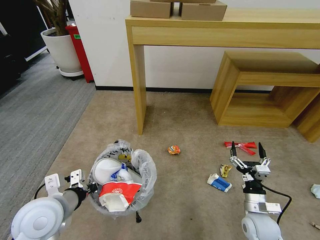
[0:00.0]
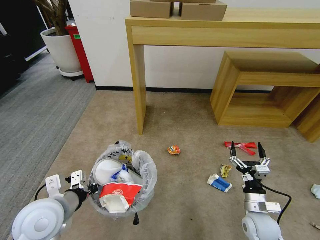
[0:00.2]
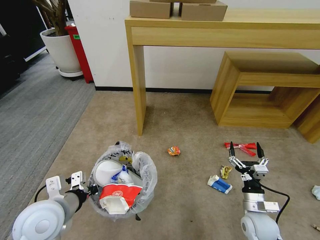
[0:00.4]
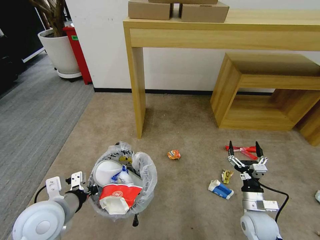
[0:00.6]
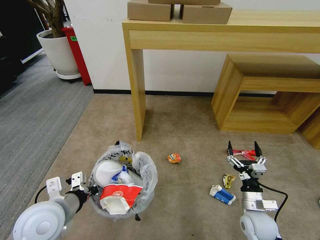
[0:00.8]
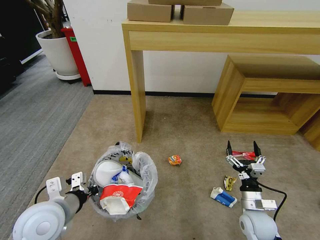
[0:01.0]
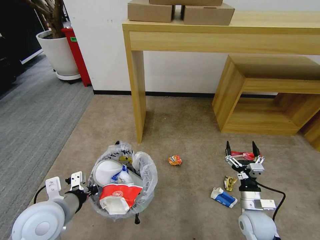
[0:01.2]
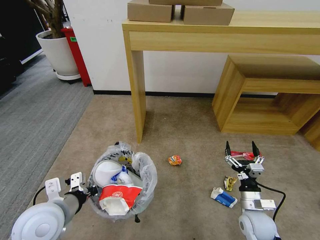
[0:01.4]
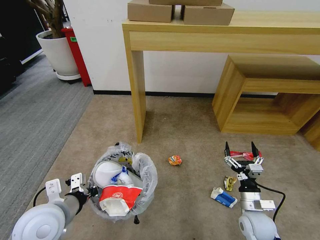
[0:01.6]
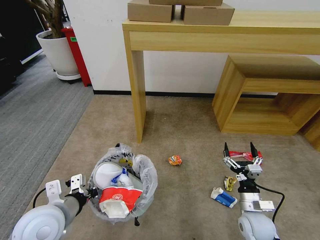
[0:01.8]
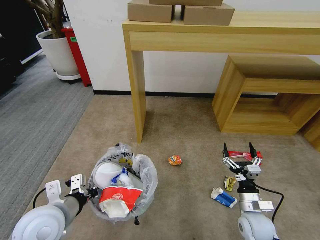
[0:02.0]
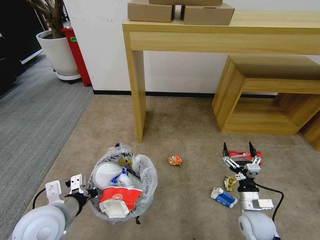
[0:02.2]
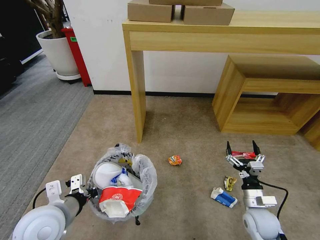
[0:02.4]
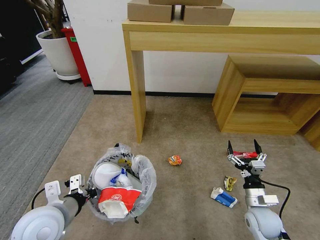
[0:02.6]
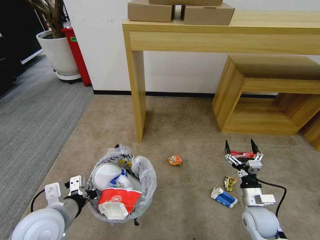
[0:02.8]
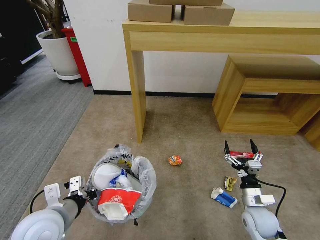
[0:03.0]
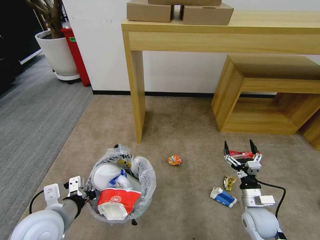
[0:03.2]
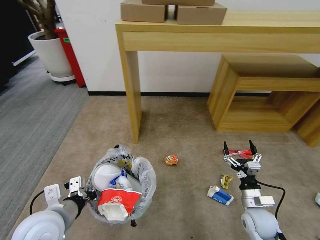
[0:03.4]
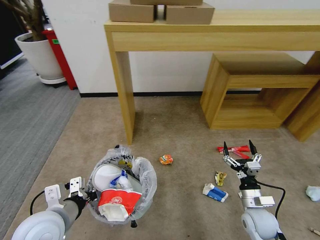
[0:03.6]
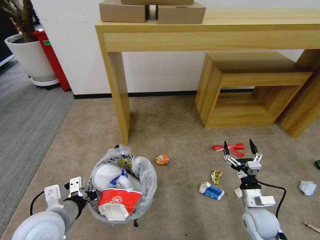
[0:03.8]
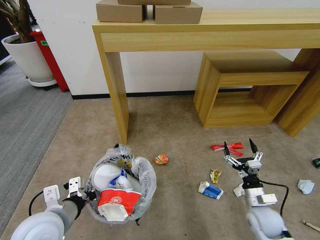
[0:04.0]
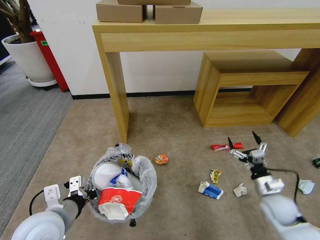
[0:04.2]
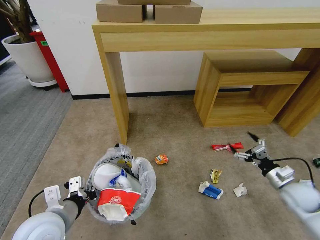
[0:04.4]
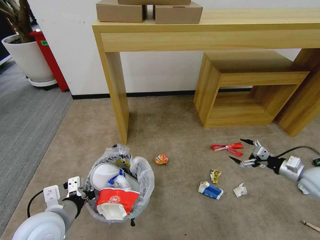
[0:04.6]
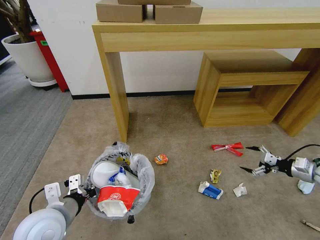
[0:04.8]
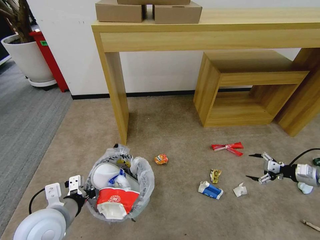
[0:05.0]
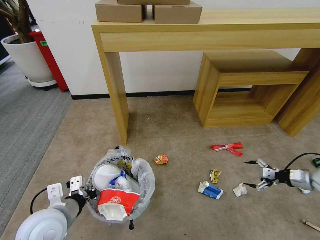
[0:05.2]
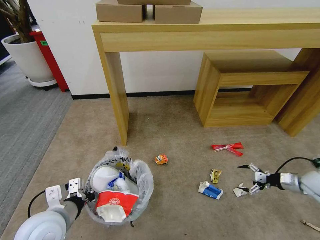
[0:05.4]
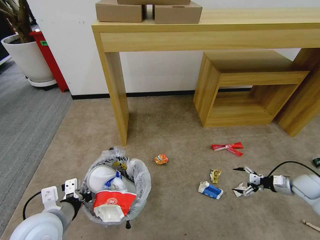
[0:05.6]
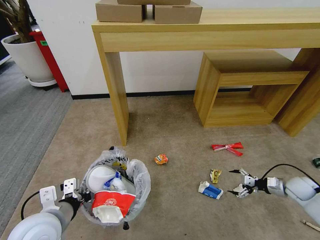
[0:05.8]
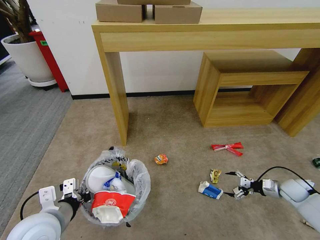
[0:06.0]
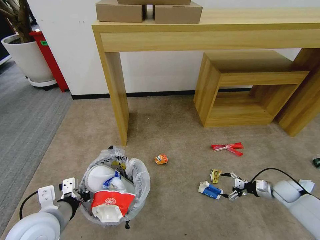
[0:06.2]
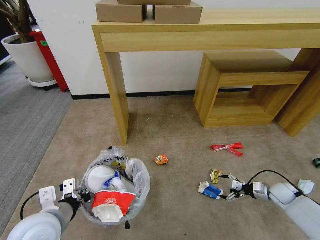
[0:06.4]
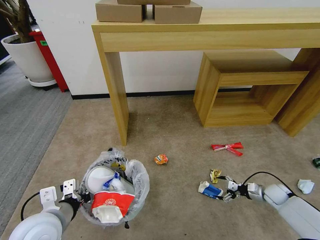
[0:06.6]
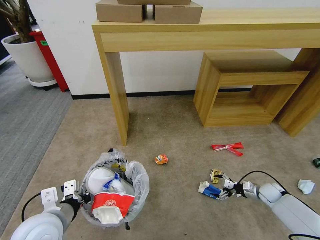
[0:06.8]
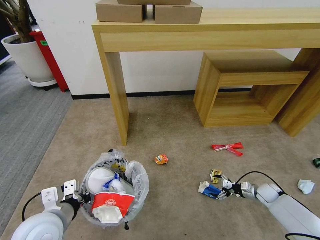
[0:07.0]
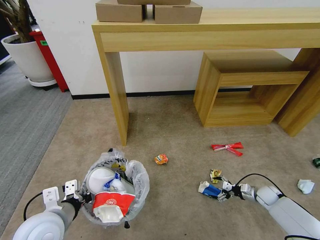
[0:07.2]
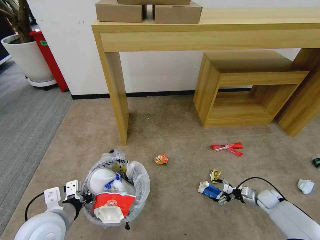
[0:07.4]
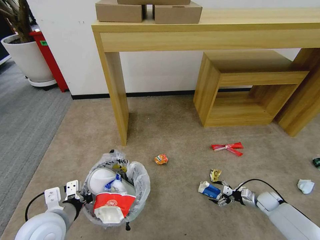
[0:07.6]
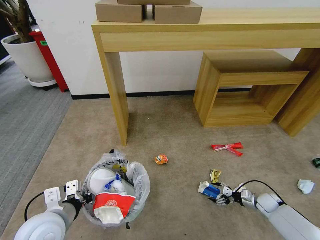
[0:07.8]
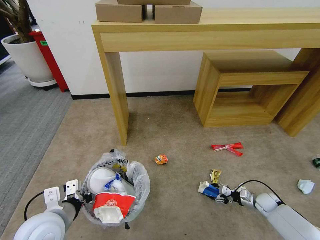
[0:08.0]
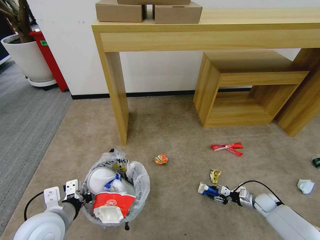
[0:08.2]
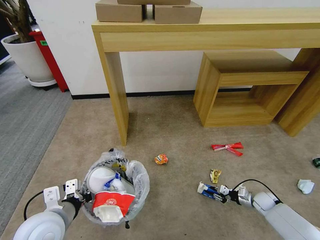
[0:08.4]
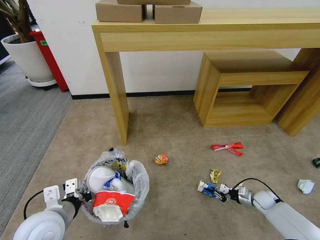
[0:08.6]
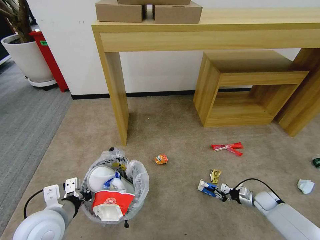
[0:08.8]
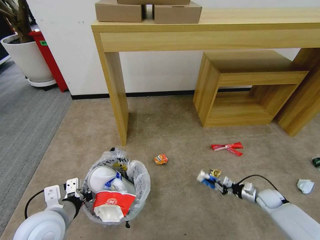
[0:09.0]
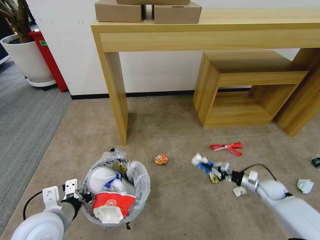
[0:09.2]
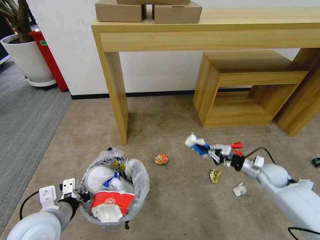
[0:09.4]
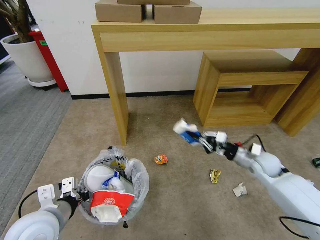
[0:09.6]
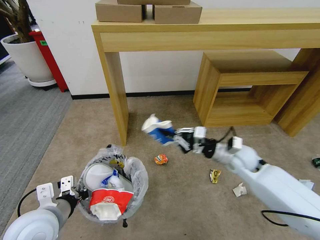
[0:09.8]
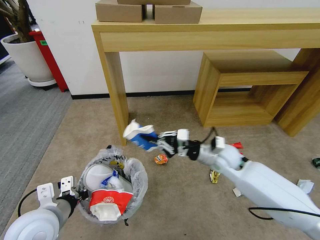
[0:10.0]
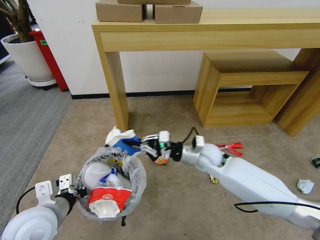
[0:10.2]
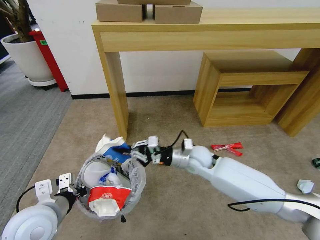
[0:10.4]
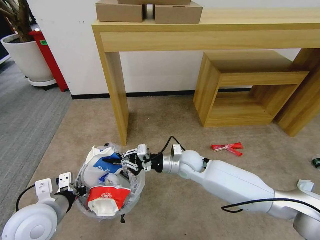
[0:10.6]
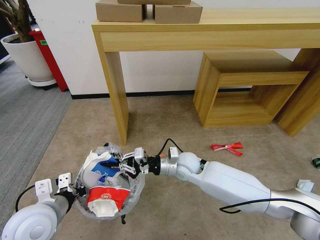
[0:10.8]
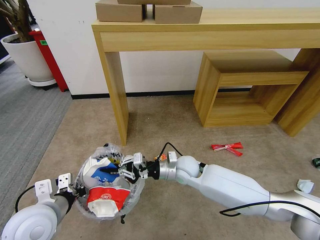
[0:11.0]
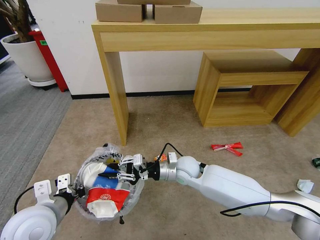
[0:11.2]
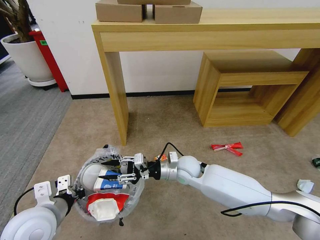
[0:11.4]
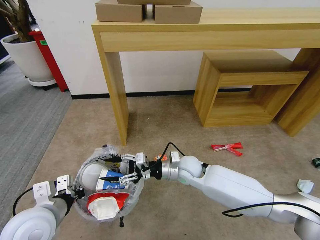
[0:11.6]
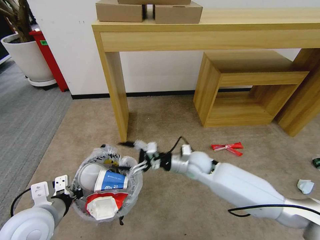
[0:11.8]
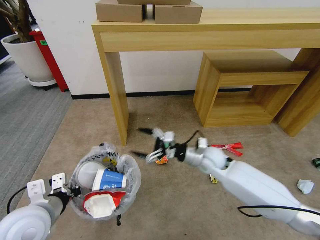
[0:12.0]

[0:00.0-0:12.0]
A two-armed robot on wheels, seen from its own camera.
Task of the whole recording: Pick up the trash bin and place the garbage on the floor into it.
0:01.6 to 0:03.0: The grippers make only small movements.
0:03.0 to 0:04.4: The right gripper is displaced to the right, upward and forward by about 15 cm.
0:04.4 to 0:06.0: The right gripper moves downward and to the right, roughly 10 cm.
0:06.0 to 0:07.6: The right gripper is displaced downward and to the left by some 10 cm.
0:07.6 to 0:09.0: The right gripper closes.
0:09.0 to 0:10.4: The right gripper moves to the left and upward, some 40 cm.
0:10.4 to 0:12.0: The right gripper moves to the right, roughly 5 cm, and opens up.

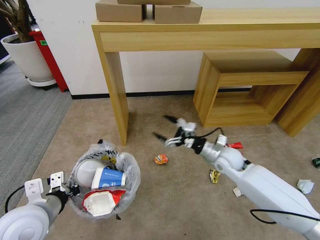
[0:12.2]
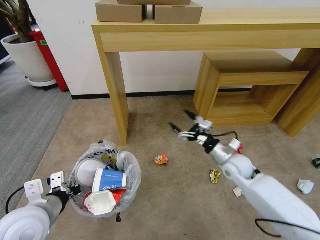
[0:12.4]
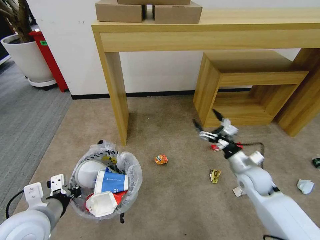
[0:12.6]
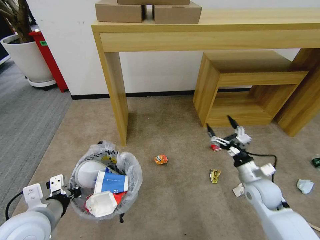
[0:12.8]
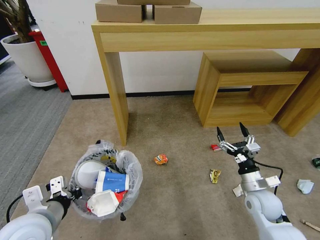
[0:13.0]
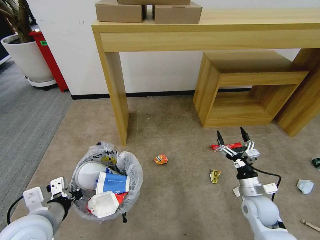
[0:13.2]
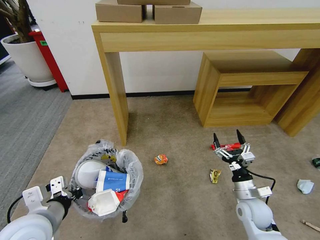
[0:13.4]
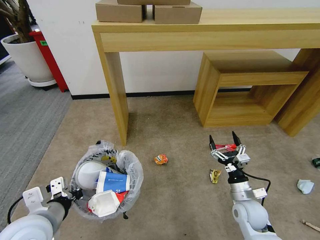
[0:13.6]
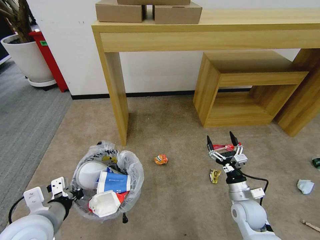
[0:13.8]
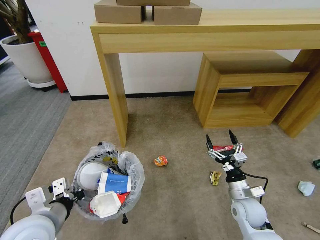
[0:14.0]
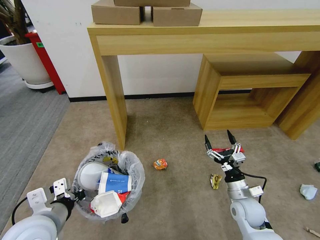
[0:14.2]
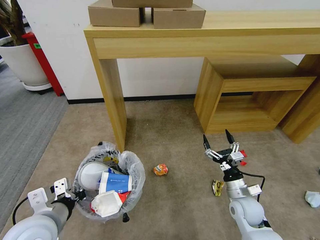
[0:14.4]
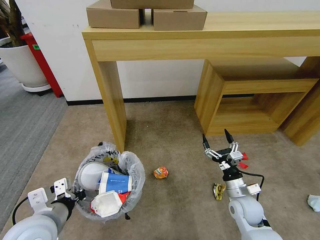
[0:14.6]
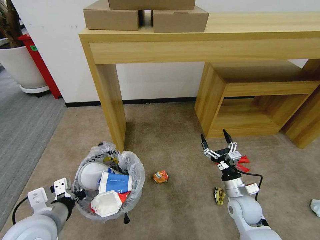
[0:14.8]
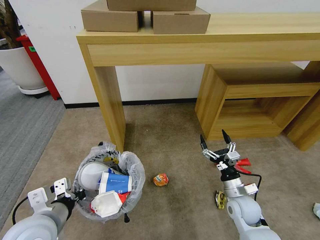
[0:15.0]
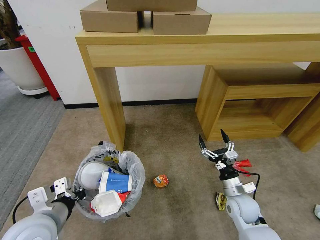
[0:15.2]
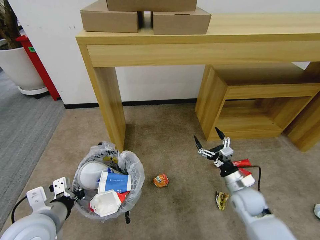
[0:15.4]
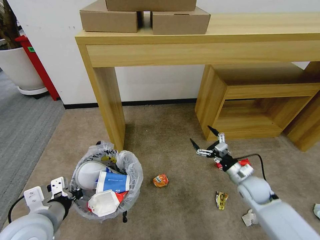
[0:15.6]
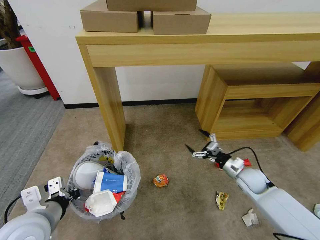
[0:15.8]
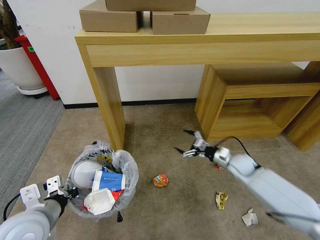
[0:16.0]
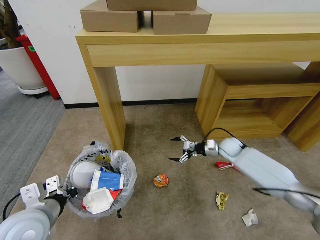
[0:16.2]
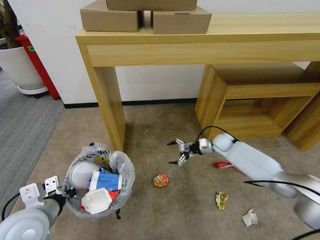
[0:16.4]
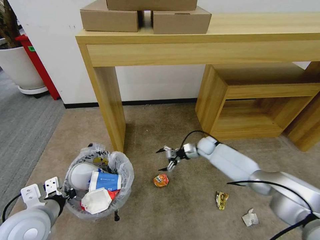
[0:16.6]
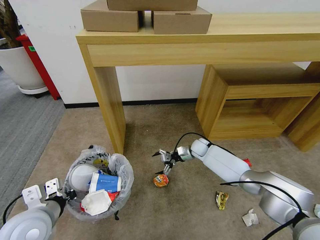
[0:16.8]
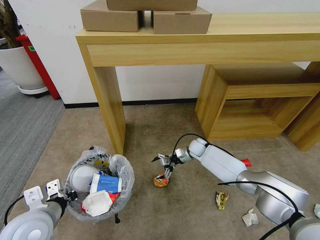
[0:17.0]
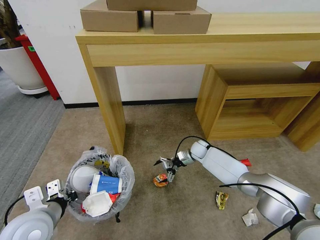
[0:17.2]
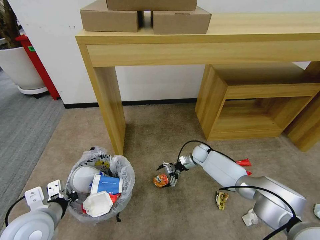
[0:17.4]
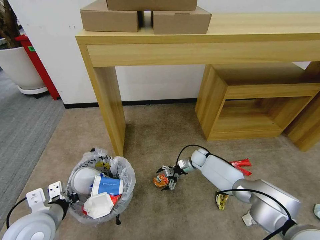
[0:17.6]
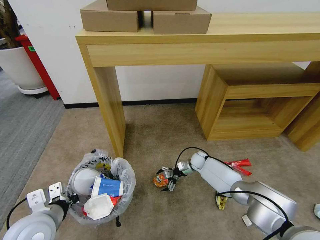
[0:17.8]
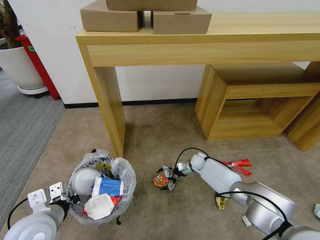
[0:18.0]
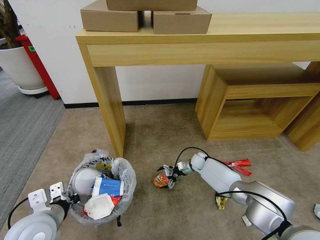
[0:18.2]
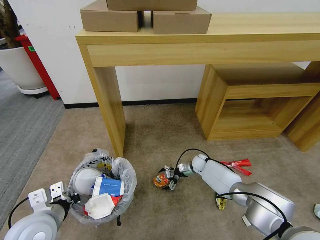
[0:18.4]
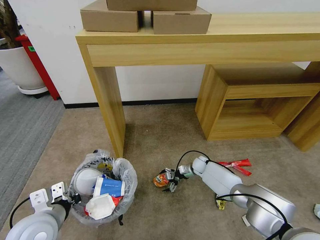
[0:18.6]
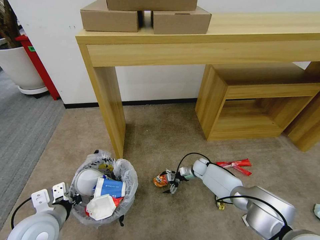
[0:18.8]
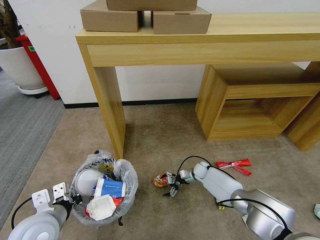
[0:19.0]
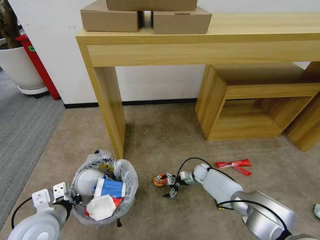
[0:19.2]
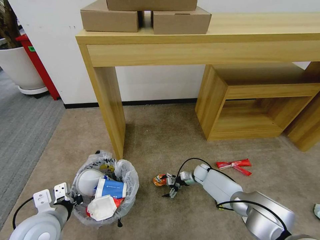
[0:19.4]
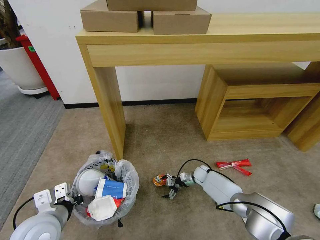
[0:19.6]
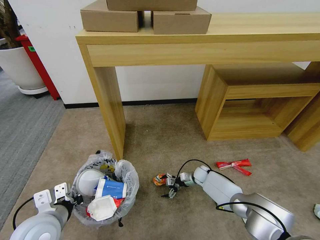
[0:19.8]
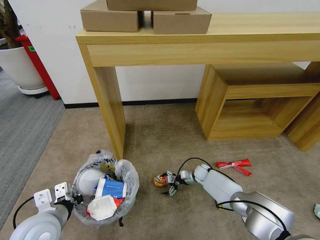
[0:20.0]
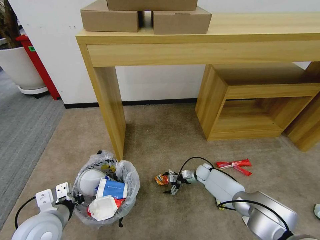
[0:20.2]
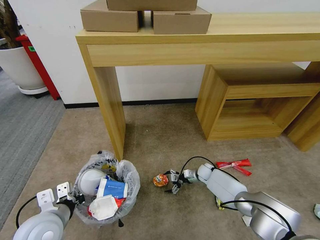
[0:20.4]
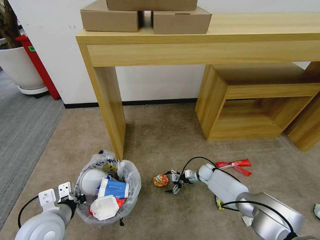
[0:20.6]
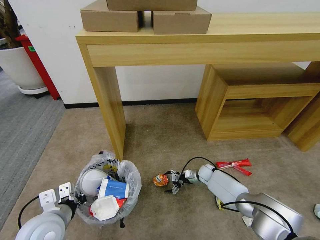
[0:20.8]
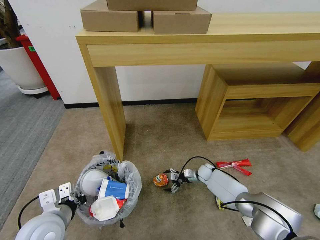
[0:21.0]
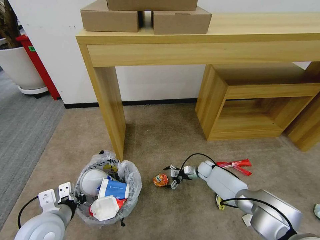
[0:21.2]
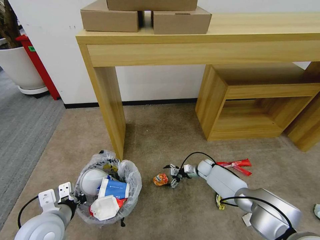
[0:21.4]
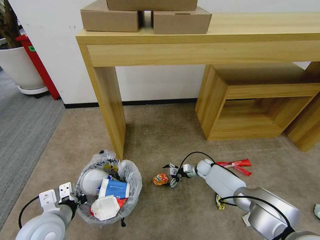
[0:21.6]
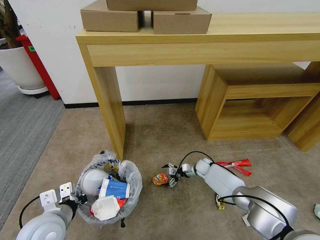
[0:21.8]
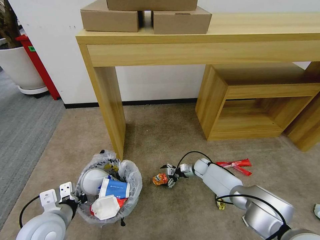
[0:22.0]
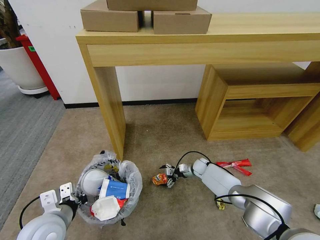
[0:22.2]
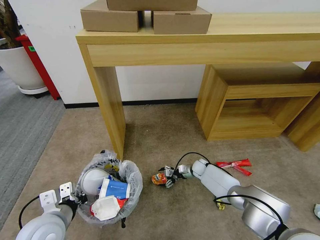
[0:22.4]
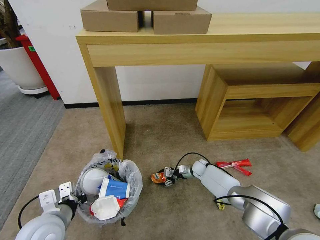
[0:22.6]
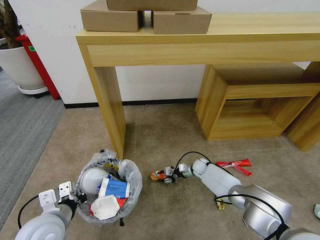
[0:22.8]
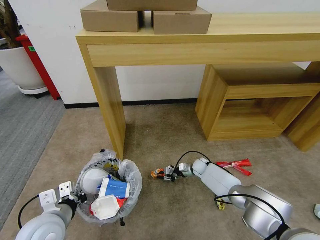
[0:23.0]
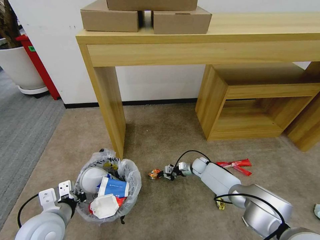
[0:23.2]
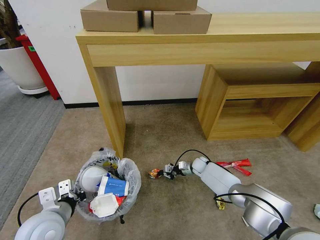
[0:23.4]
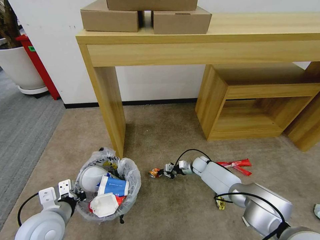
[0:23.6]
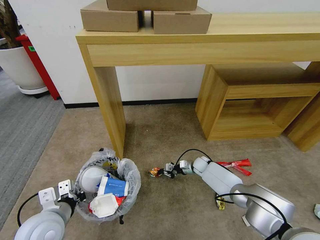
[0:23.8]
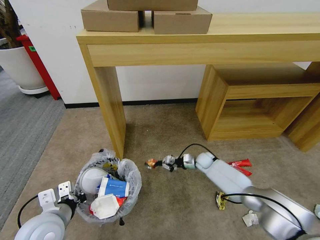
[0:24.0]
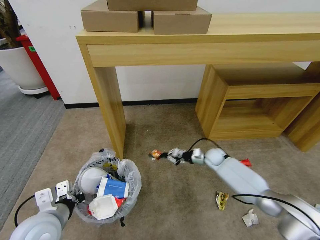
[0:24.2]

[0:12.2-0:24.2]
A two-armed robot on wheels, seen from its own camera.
Task of the whole recording: Pick up the trash bin and place the garbage on the floor into it.
0:12.2 to 0:13.8: The right gripper shifts about 20 cm backward and downward.
0:15.2 to 0:16.6: The right gripper moves forward, about 25 cm.
0:16.6 to 0:18.2: The right gripper heads downward, covering about 10 cm.
0:18.2 to 0:19.8: The right gripper moves downward, some 5 cm.
0:19.8 to 0:22.6: There are only small adjustments of the grippers.
0:22.6 to 0:24.2: The right gripper travels upward by roughly 10 cm, and closes its fingers.
